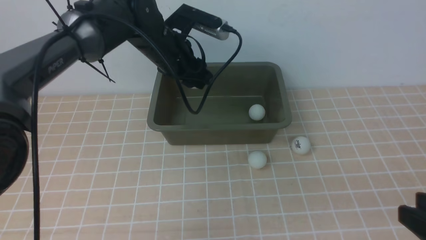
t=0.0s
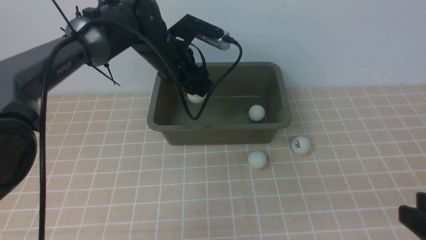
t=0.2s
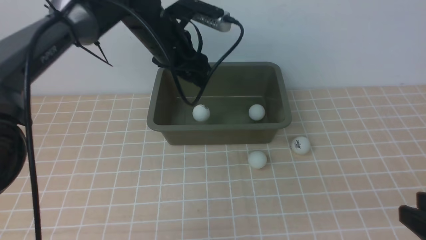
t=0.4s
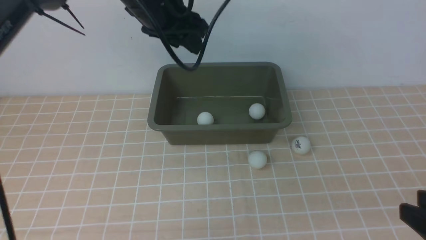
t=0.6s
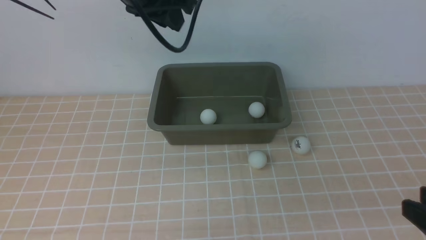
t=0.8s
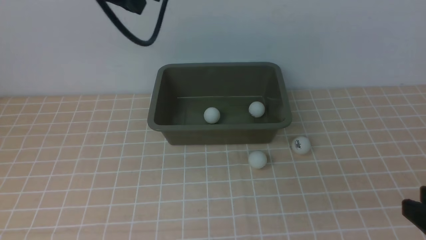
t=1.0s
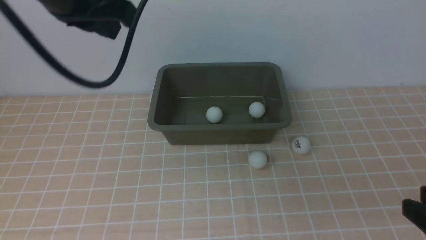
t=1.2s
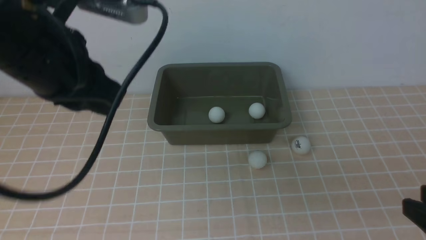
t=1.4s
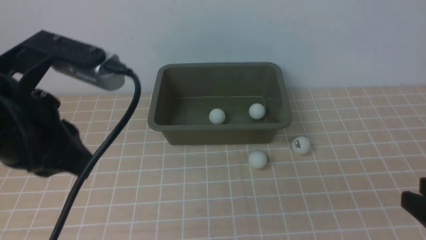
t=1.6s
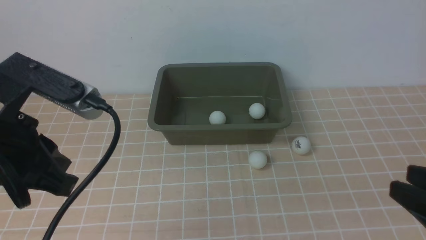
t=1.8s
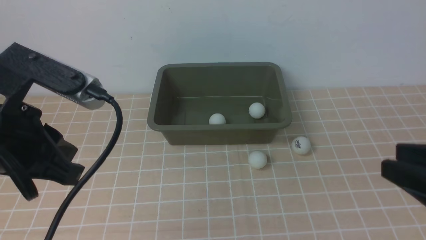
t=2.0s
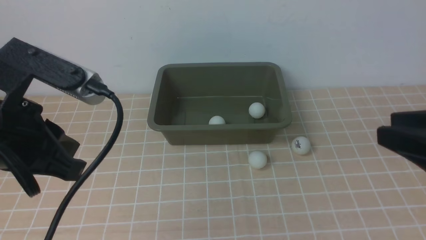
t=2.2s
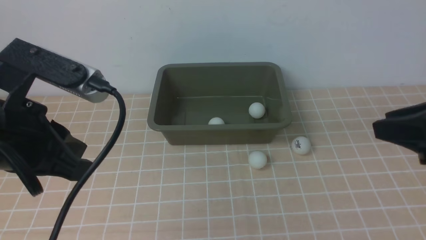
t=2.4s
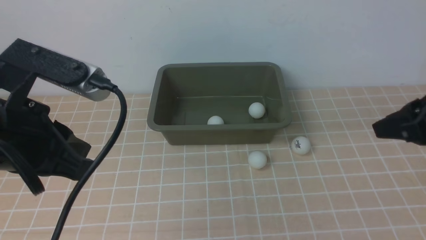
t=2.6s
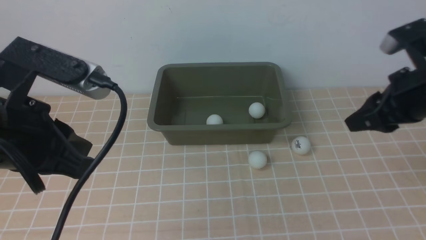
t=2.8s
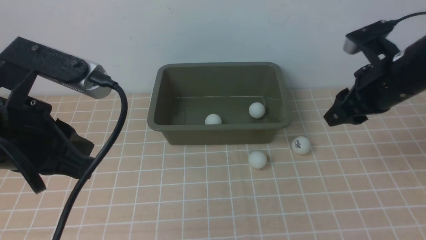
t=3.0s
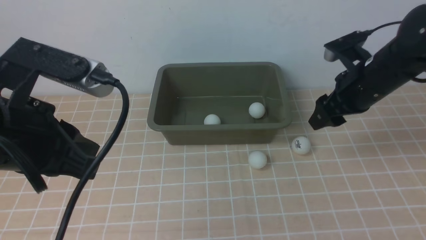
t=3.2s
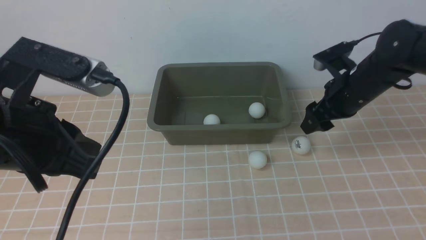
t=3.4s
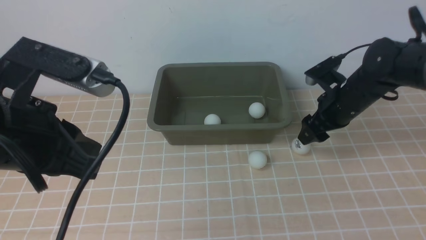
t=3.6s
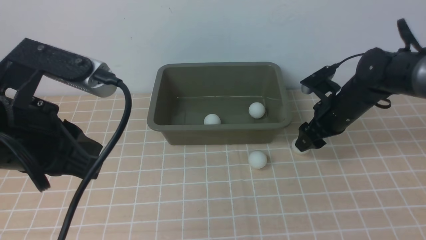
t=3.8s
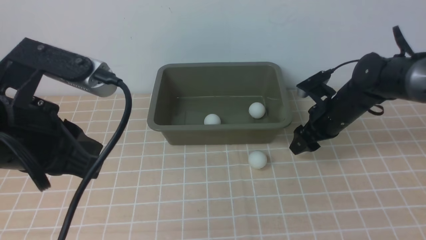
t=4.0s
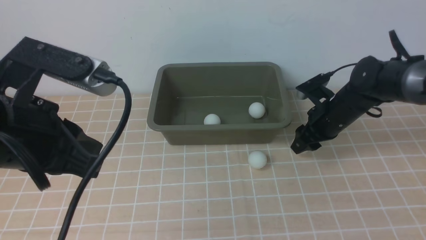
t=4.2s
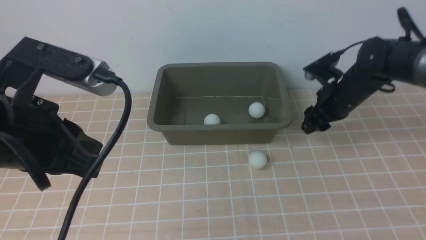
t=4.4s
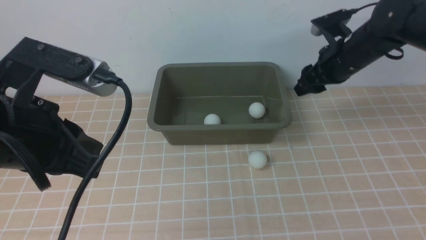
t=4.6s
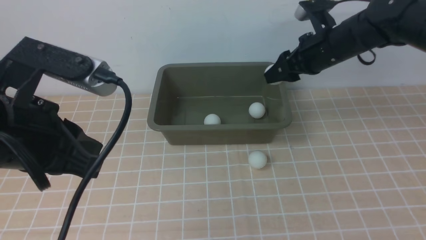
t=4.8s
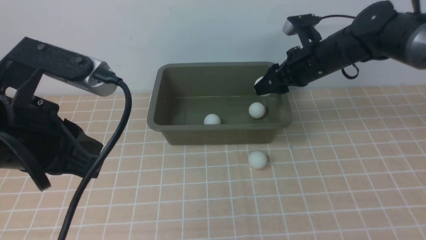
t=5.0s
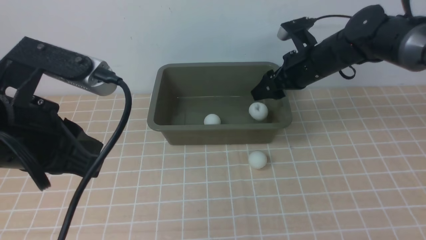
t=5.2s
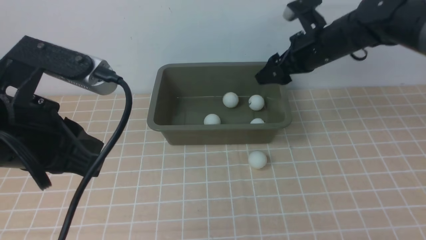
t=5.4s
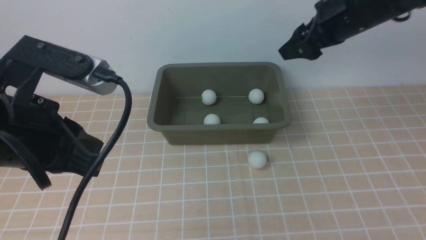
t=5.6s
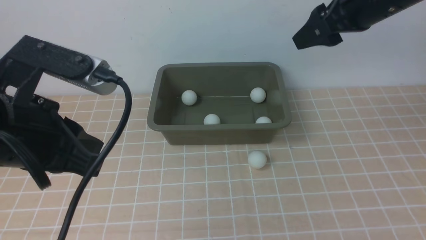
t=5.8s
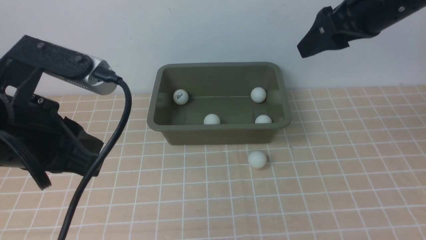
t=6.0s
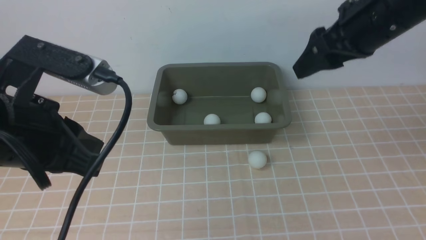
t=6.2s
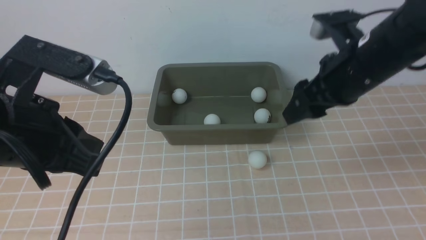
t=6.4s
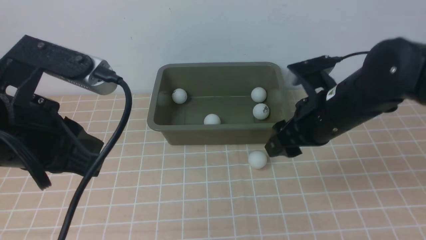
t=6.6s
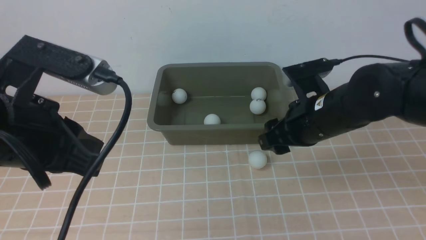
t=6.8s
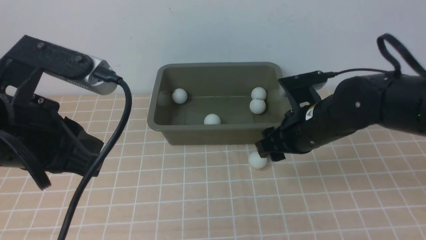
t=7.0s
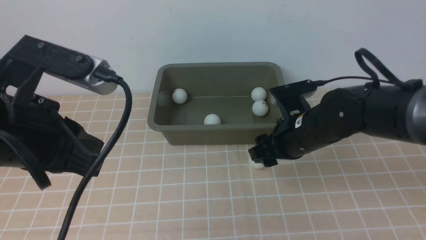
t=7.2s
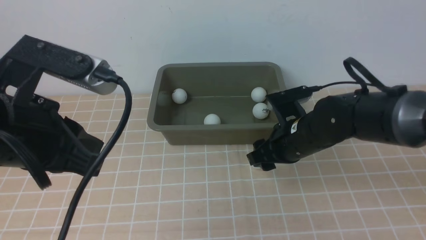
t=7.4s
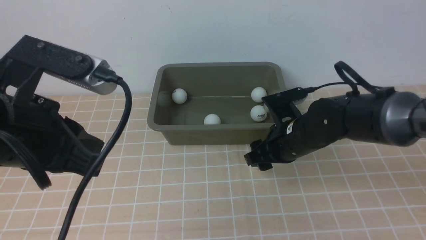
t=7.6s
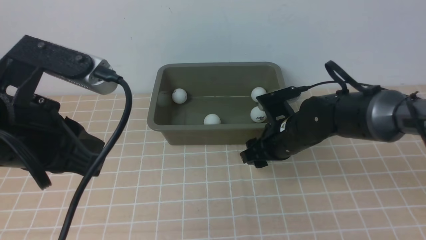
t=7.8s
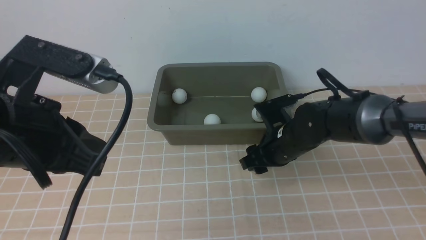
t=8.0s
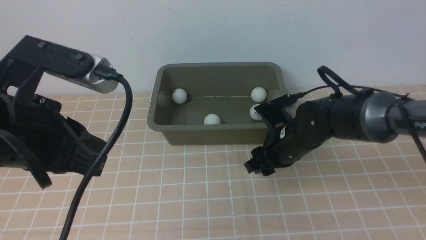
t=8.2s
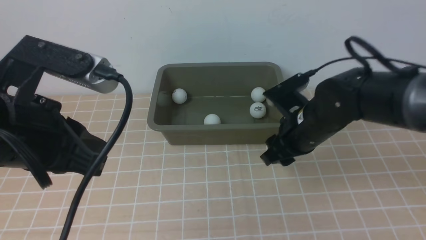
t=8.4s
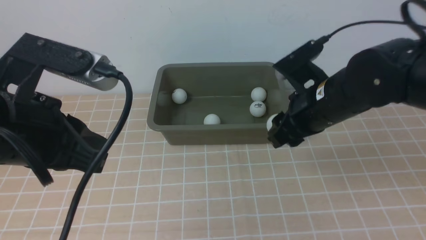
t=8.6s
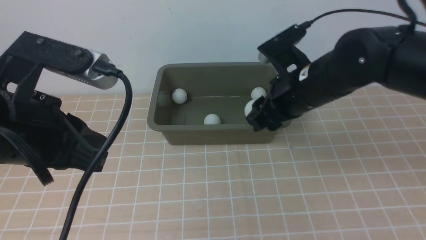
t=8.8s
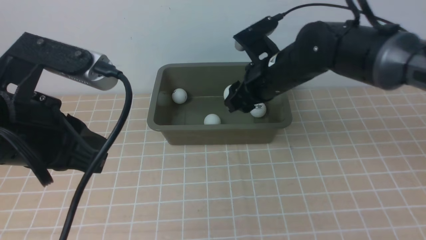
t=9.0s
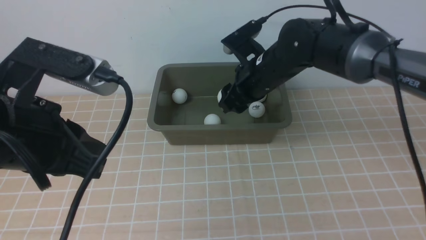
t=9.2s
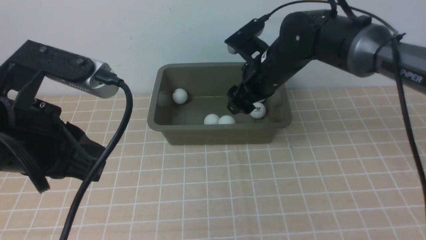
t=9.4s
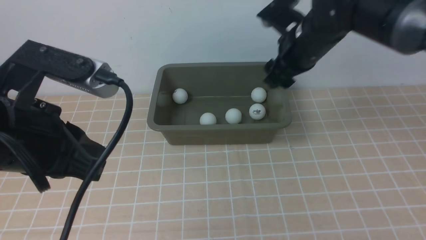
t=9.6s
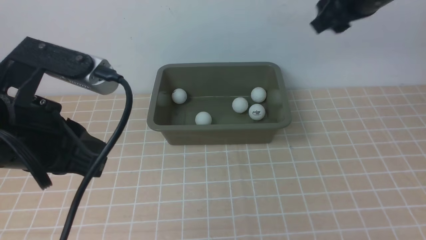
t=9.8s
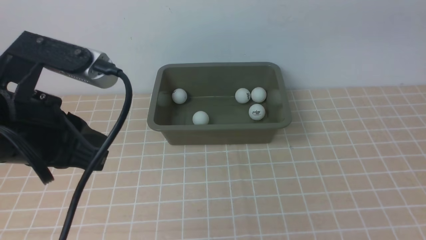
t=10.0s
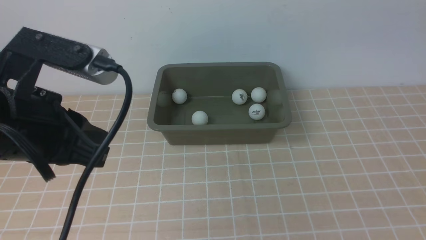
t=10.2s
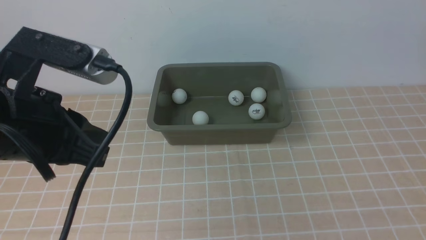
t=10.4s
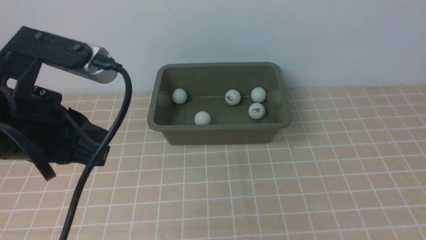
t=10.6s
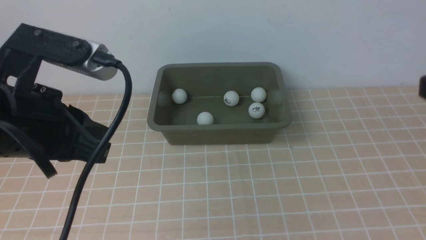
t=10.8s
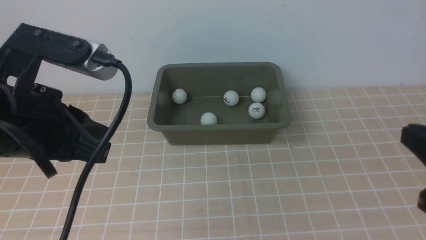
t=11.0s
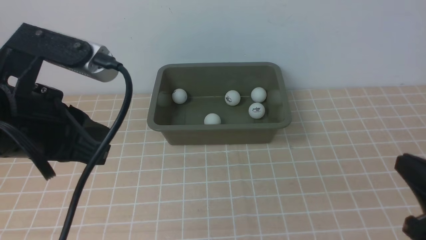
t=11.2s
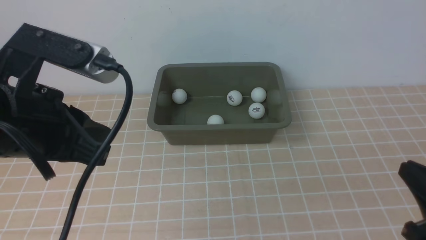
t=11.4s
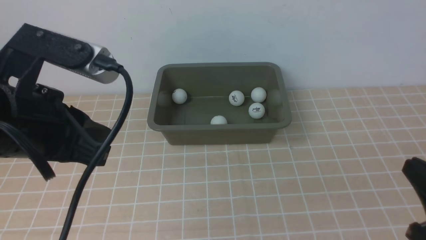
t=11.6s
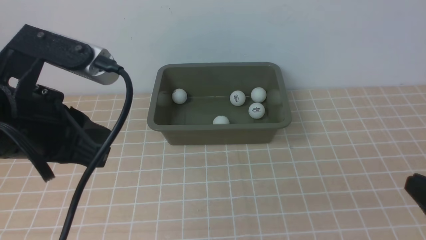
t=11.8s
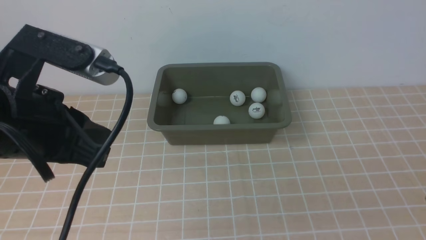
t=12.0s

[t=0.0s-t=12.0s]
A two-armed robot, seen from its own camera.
Step, t=0.6s to t=4.4s: use the right arm to clamp the table tennis ball closest to it.
Step, t=4.6s to t=5.4s: use the right arm to put the table tennis ball into the box.
Step, t=5.6s to t=8.4s: use the right arm to clamp the table tennis ball closest to it.
Step, t=8.6s to t=9.6s: use the right arm to put the table tennis ball into the box.
t=0.0s to t=1.6s: The left gripper moves backward and to the left, approximately 25 cm, and closes.
t=1.6s to t=3.0s: The right gripper travels forward by about 25 cm.
t=3.0s to t=4.4s: The right gripper shifts roughly 15 cm forward and downward.
t=4.4s to t=6.0s: The right gripper heads upward and backward, covering roughly 20 cm.
t=6.0s to t=7.6s: The right gripper moves downward, some 20 cm.
t=7.6s to t=9.0s: The right gripper is displaced upward by roughly 10 cm.
t=9.0s to t=10.4s: The right gripper goes about 35 cm upward, backward and to the right, and closes.

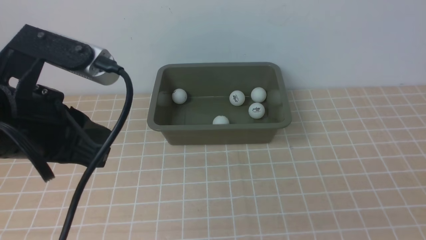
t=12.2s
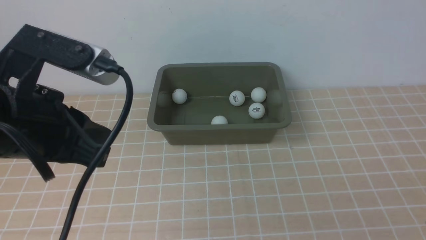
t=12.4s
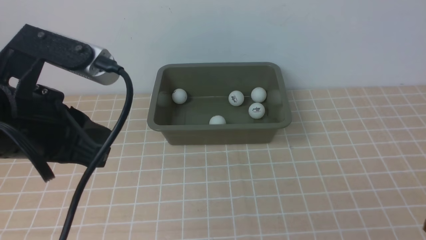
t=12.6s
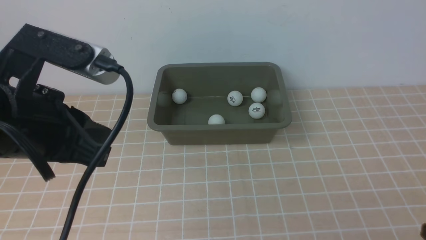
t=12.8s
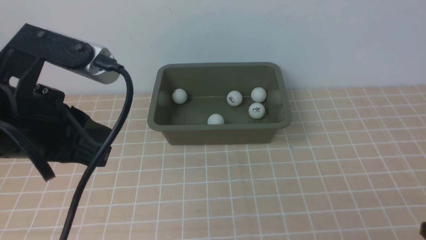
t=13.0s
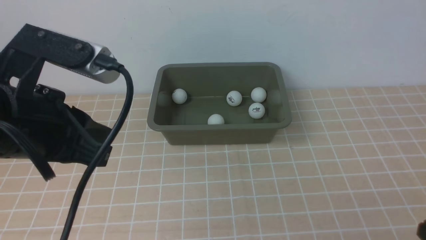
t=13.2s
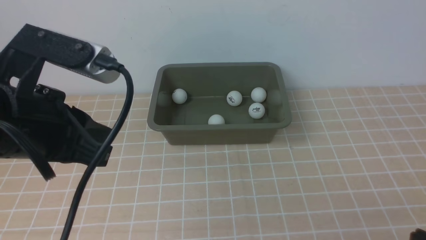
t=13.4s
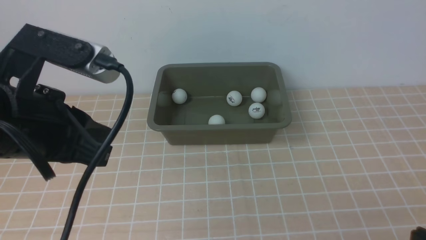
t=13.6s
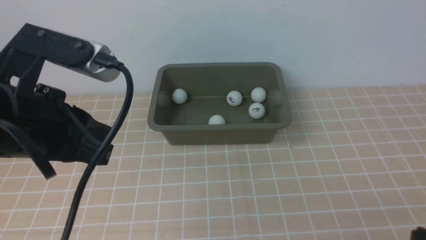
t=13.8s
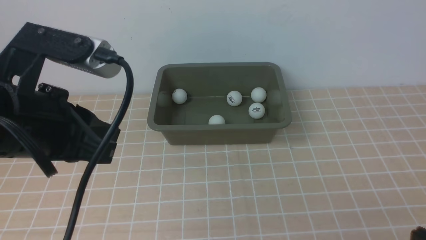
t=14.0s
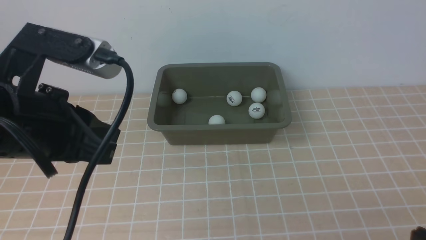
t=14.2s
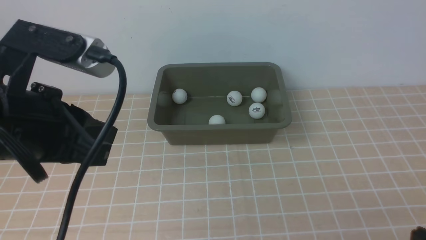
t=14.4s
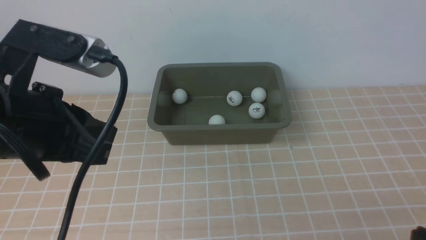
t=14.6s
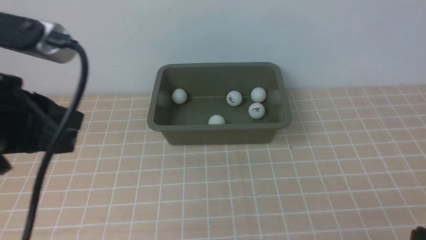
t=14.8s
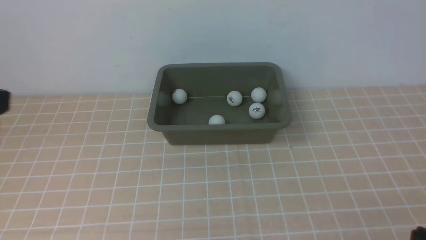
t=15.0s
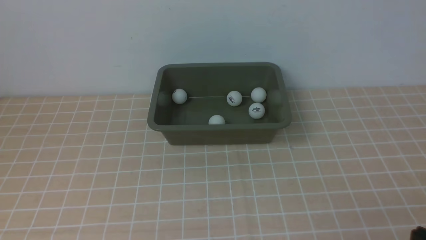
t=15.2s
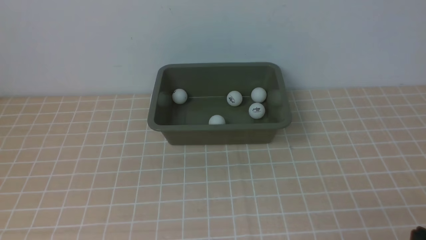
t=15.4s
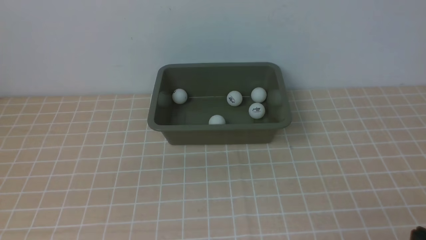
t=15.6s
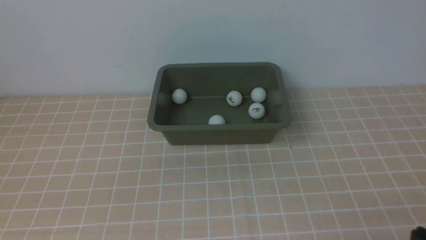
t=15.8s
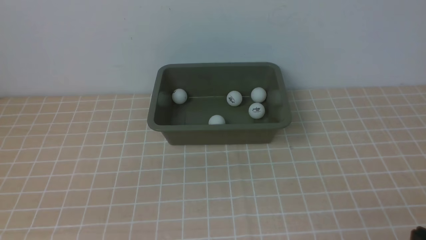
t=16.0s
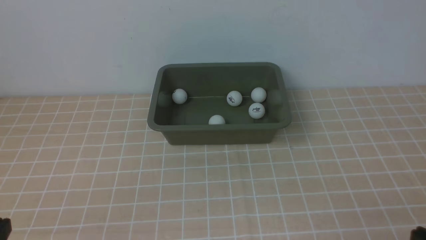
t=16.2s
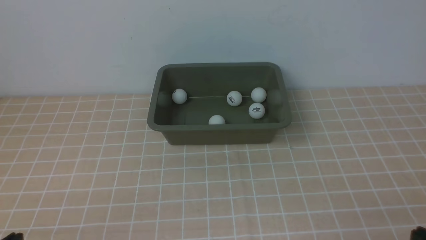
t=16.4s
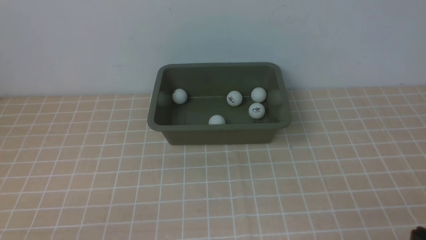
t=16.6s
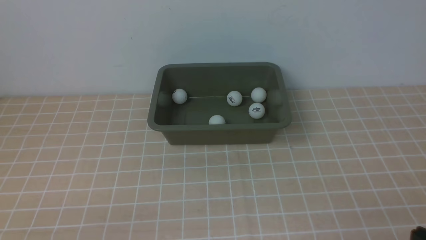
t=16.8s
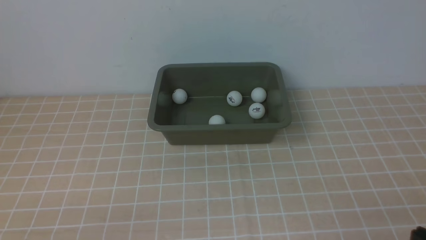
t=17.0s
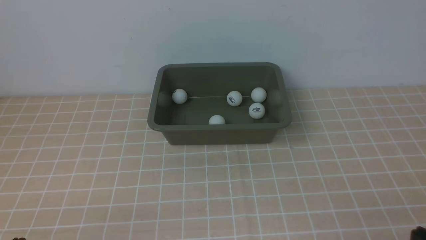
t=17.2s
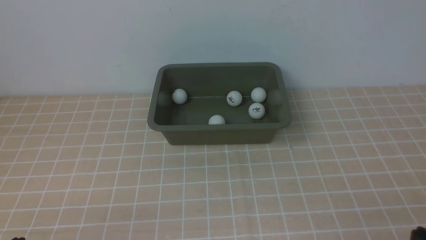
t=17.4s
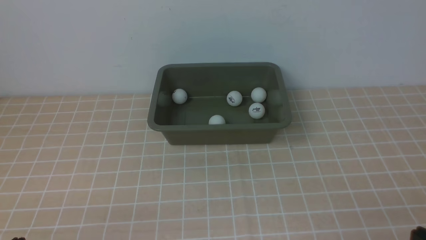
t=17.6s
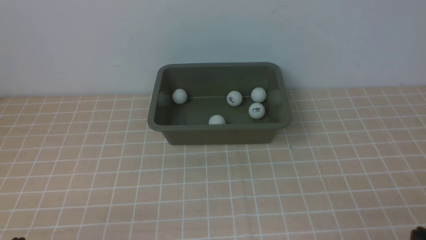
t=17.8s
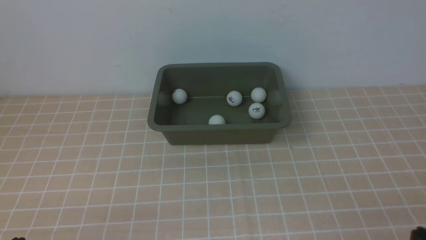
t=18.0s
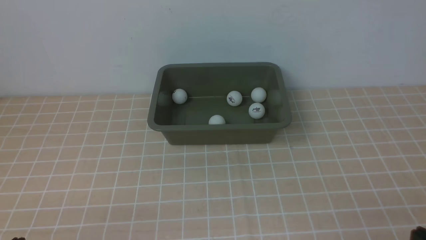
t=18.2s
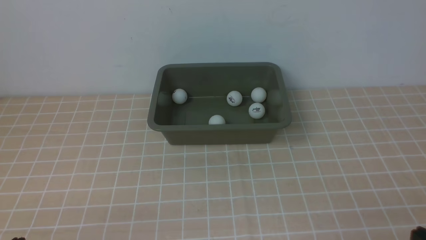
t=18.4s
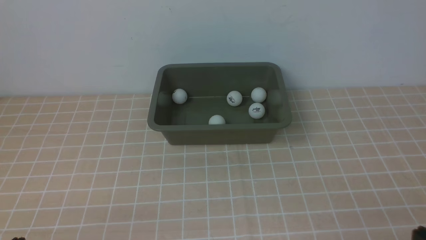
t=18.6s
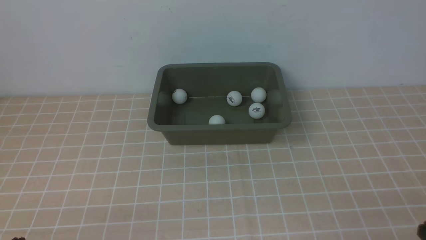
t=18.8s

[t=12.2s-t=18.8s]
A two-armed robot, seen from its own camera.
t=12.2s to t=13.8s: There are only small adjustments of the grippers.
t=13.8s to t=15.4s: The left gripper heads backward and to the left, covering some 15 cm.
